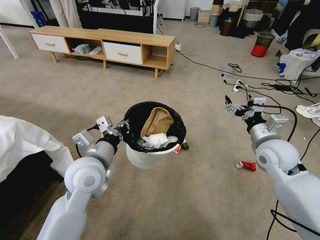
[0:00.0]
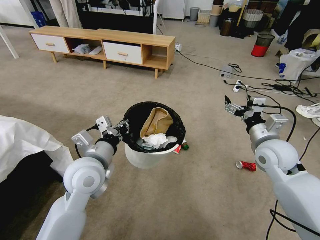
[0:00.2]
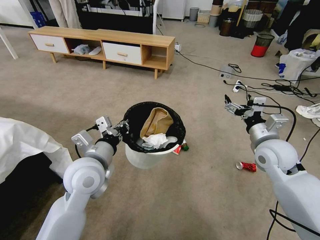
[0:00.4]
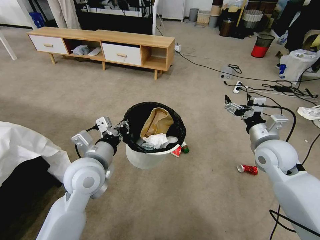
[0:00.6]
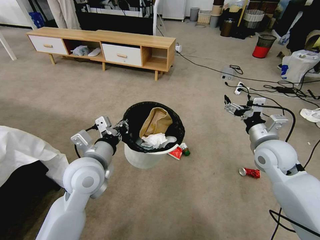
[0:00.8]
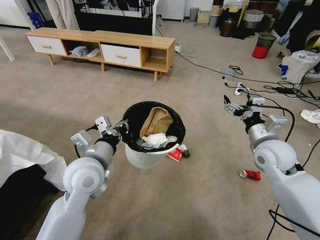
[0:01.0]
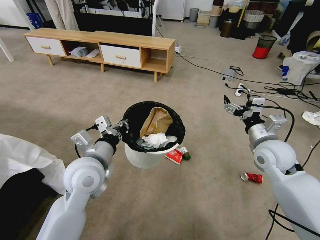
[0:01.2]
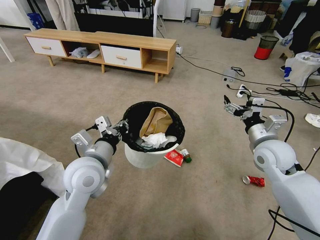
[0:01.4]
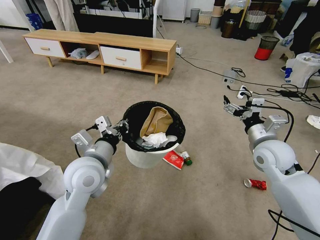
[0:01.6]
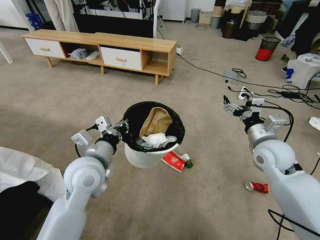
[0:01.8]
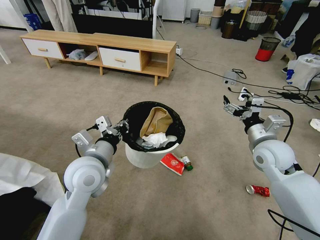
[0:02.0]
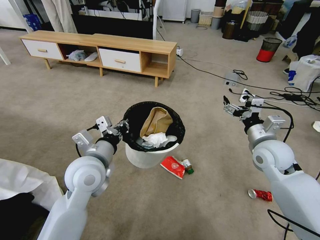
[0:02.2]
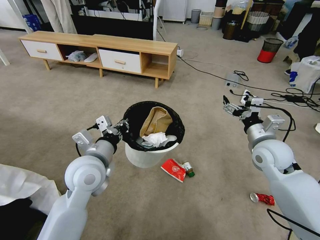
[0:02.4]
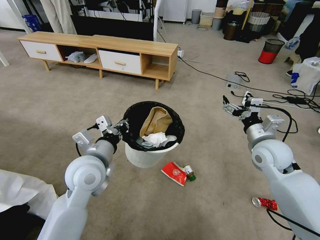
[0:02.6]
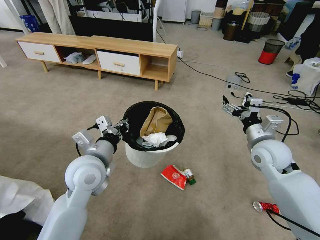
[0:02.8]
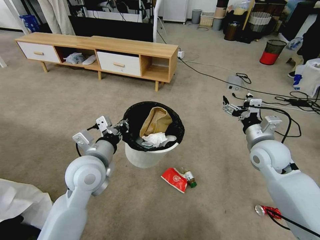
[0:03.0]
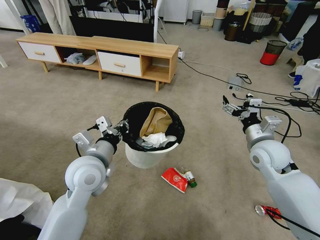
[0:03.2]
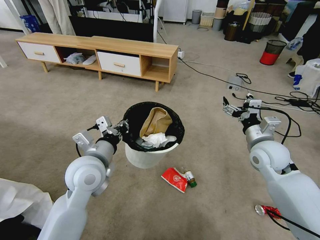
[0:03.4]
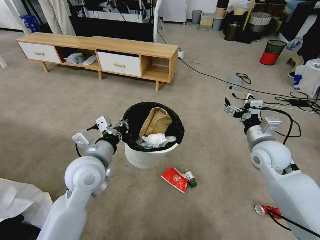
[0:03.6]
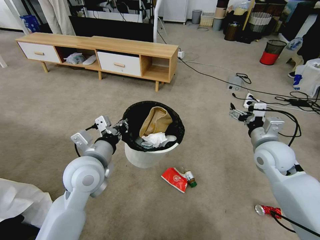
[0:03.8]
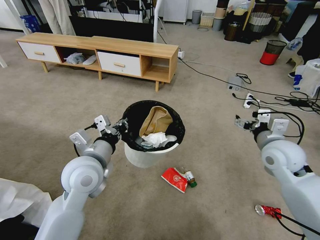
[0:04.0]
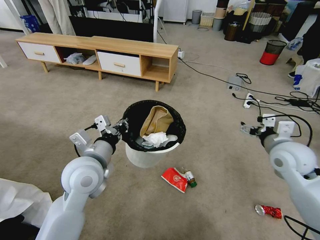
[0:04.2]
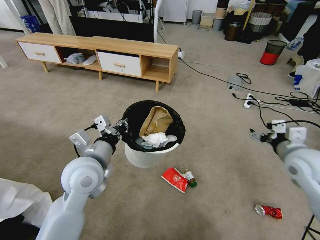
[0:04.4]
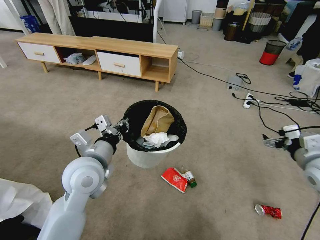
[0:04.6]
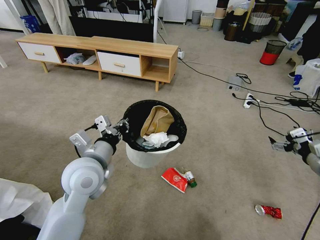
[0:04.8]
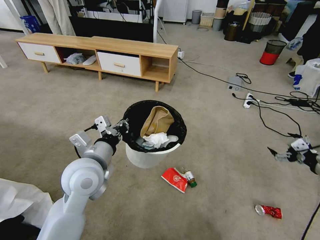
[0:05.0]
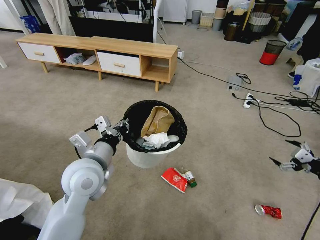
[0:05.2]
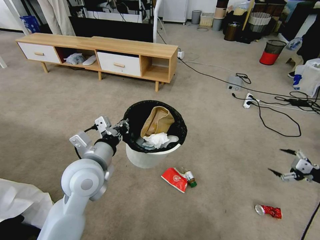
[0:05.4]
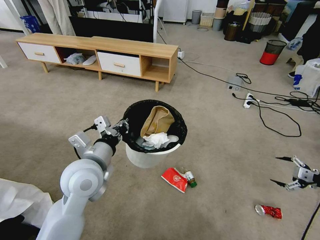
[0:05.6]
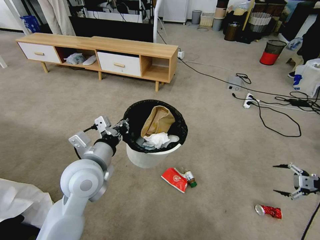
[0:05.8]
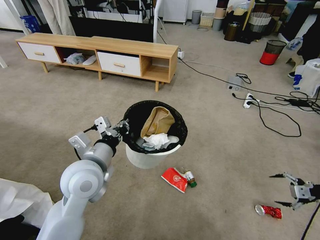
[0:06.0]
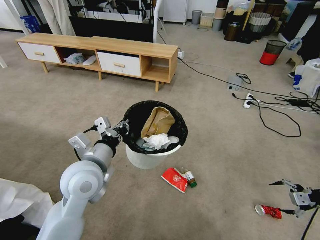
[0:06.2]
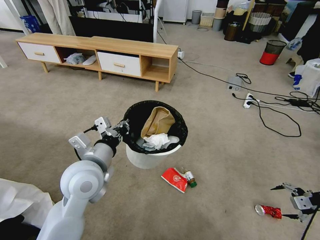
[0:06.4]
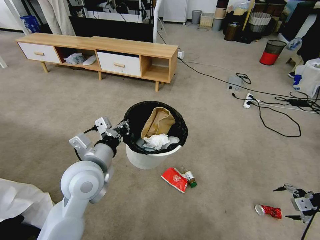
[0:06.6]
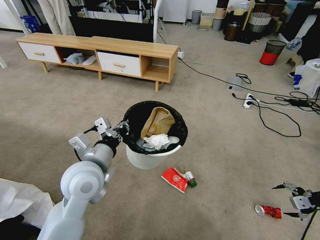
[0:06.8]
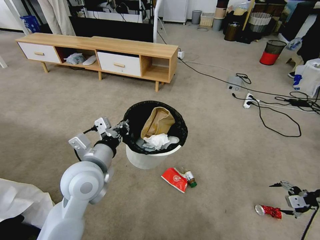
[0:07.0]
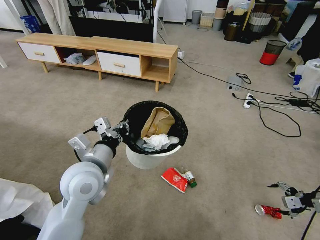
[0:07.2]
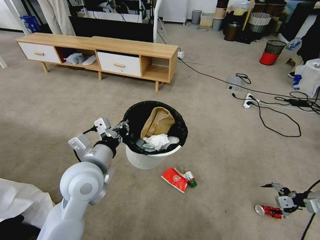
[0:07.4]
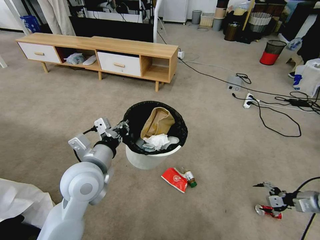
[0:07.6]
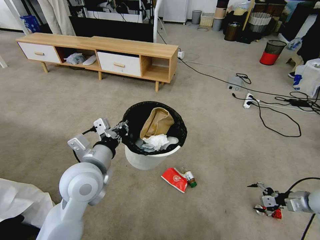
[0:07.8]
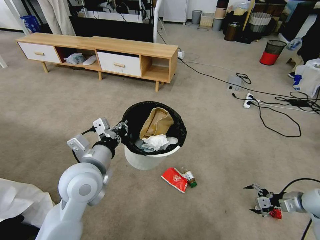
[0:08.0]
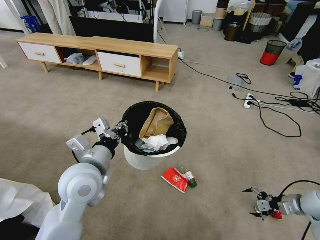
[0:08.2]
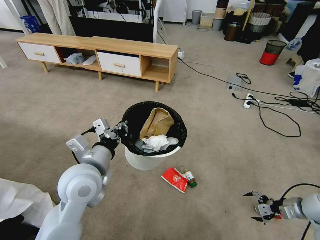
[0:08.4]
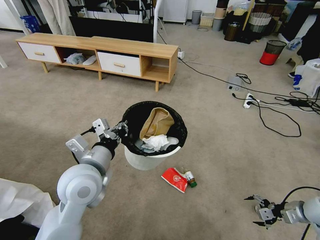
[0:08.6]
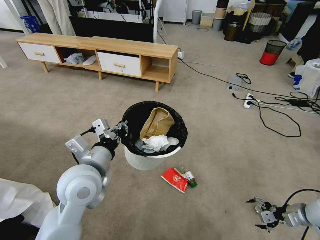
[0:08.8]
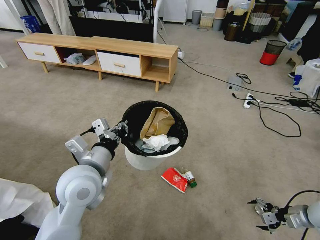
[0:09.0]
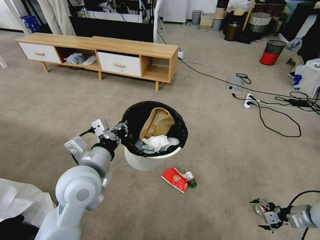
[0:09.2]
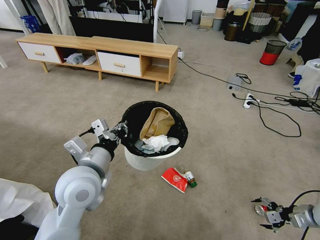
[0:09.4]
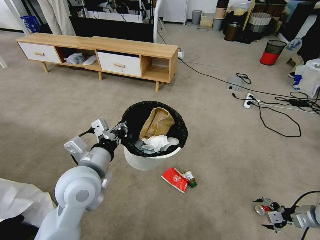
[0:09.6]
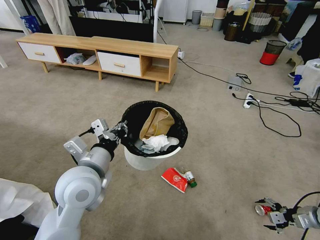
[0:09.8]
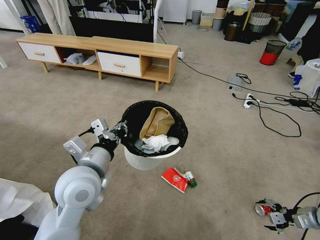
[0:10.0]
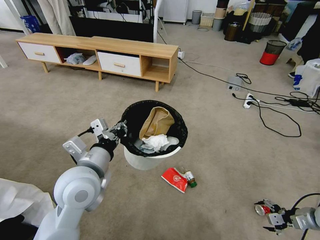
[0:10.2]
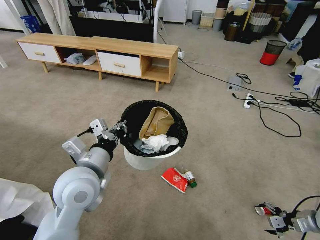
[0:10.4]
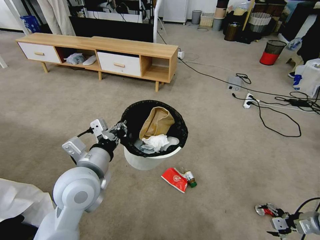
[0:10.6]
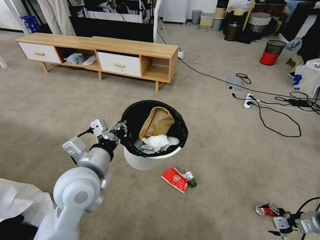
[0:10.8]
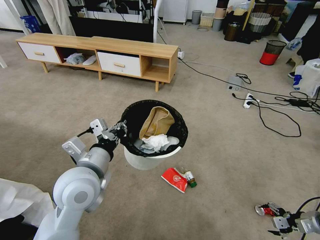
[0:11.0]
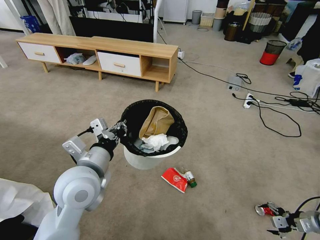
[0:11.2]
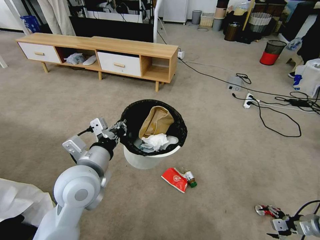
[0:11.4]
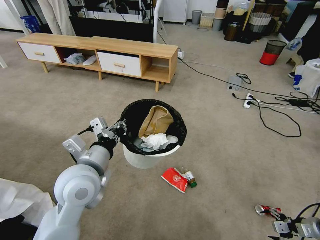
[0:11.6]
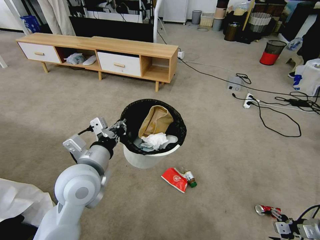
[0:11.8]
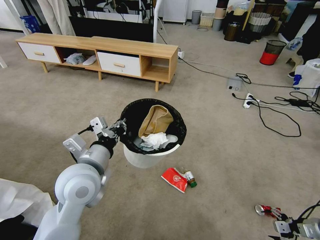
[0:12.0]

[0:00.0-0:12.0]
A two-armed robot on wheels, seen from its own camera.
Task of the whole recording: Pick up the trash bin and place the garbage on the floor into it.
0:03.0 to 0:04.4: The right gripper is displaced to the right and backward by some 10 cm.
0:04.4 to 0:06.0: The right gripper goes about 20 cm to the right.
0:06.0 to 0:07.6: The right gripper travels downward by about 10 cm.
0:07.6 to 0:09.0: The right gripper moves downward, approximately 5 cm.
0:09.0 to 0:10.4: The grippers move only a little.
0:10.4 to 0:12.0: There are only small adjustments of the grippers.

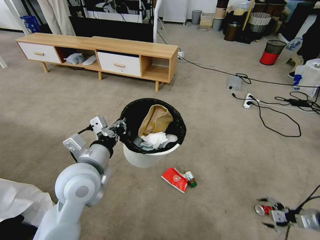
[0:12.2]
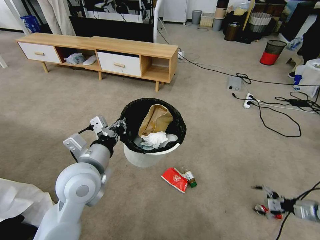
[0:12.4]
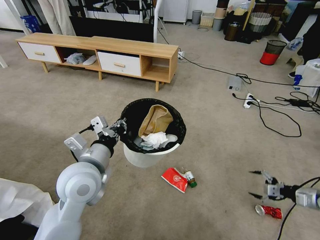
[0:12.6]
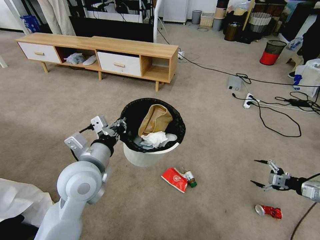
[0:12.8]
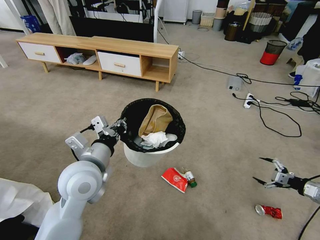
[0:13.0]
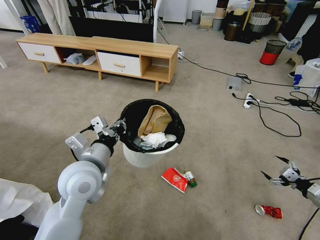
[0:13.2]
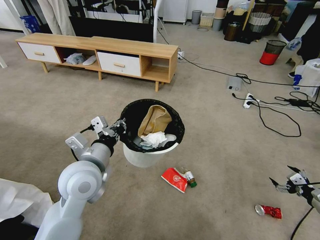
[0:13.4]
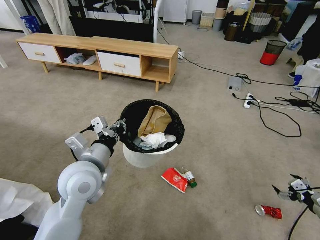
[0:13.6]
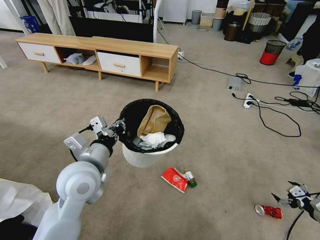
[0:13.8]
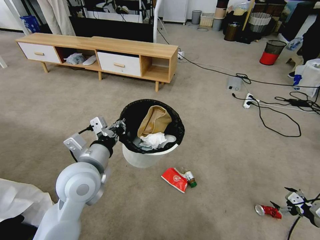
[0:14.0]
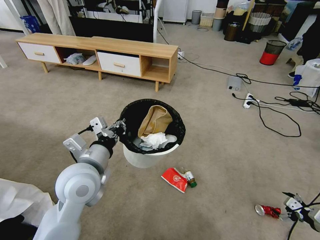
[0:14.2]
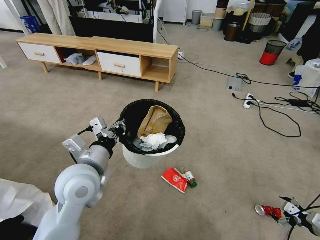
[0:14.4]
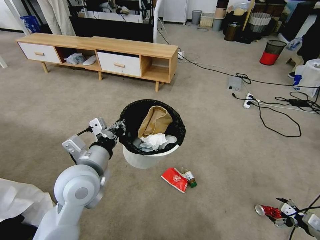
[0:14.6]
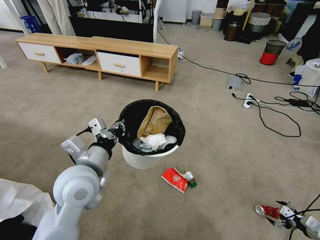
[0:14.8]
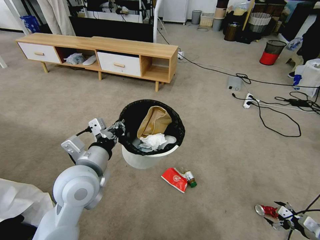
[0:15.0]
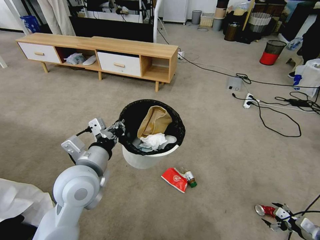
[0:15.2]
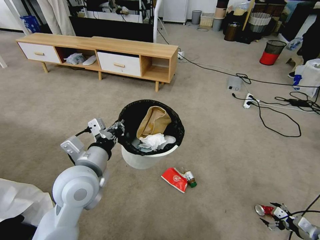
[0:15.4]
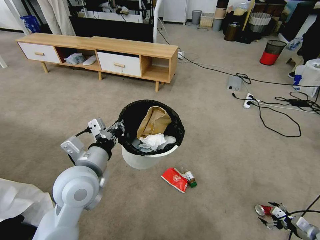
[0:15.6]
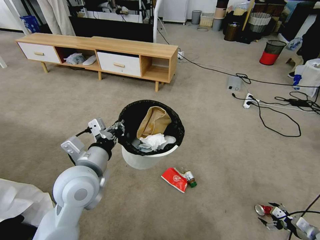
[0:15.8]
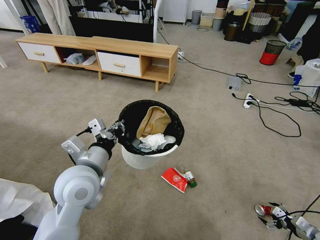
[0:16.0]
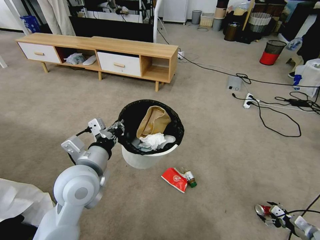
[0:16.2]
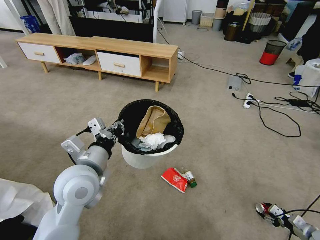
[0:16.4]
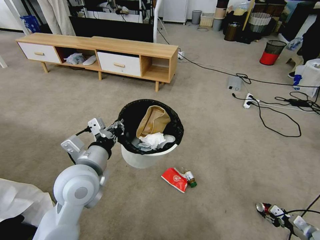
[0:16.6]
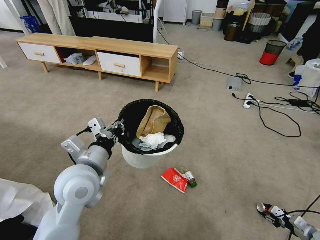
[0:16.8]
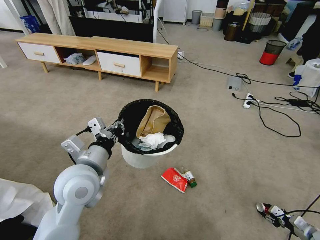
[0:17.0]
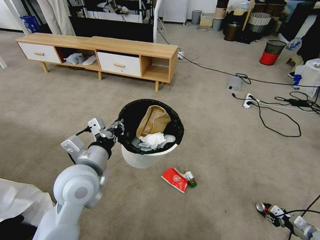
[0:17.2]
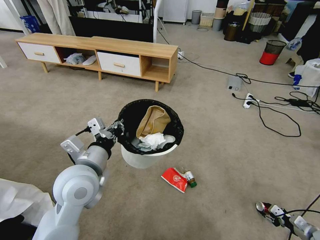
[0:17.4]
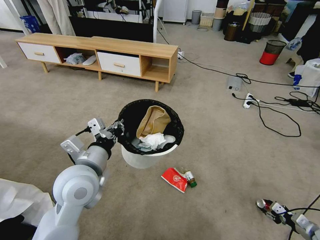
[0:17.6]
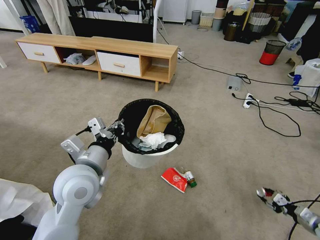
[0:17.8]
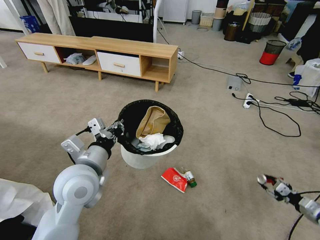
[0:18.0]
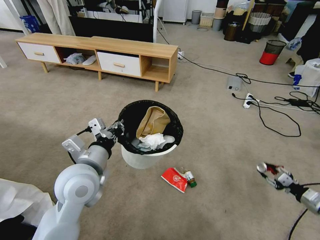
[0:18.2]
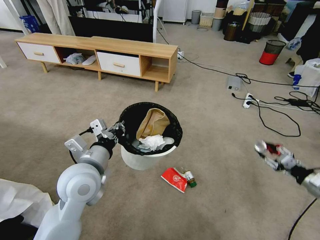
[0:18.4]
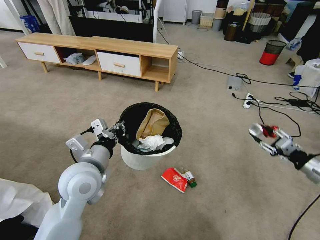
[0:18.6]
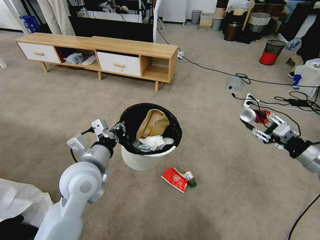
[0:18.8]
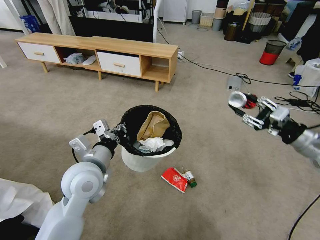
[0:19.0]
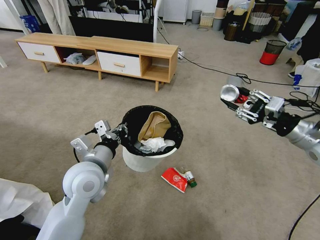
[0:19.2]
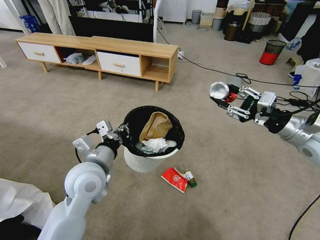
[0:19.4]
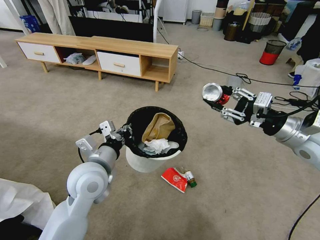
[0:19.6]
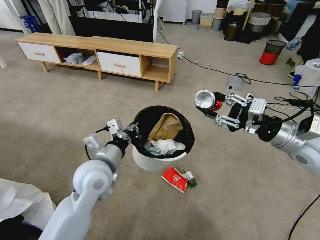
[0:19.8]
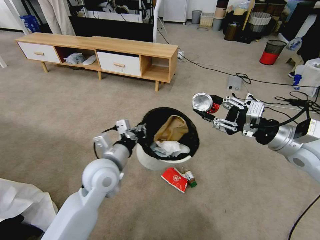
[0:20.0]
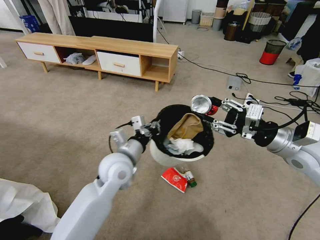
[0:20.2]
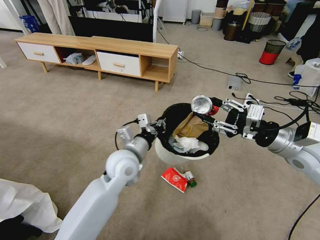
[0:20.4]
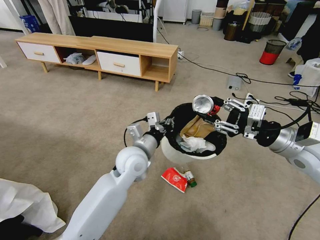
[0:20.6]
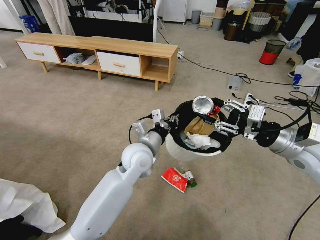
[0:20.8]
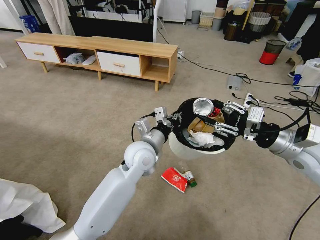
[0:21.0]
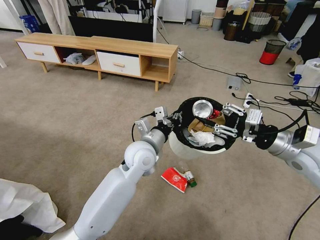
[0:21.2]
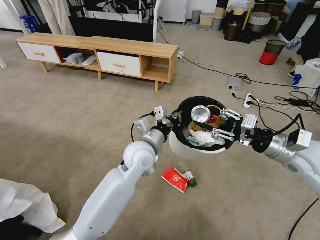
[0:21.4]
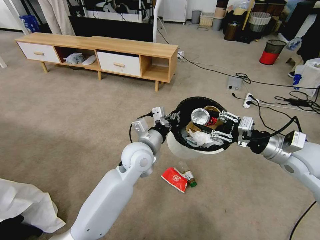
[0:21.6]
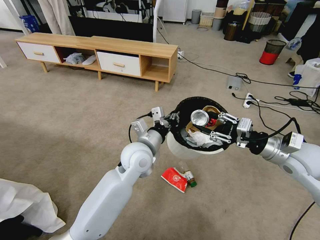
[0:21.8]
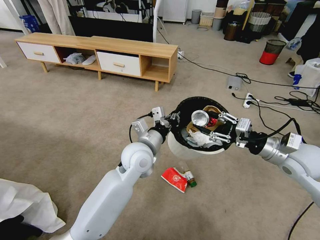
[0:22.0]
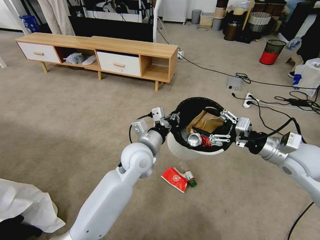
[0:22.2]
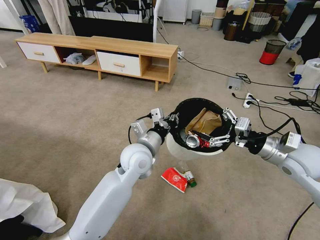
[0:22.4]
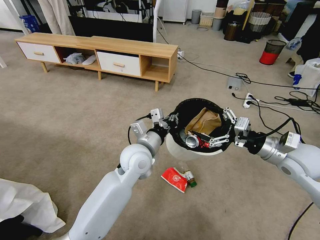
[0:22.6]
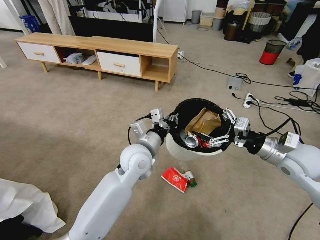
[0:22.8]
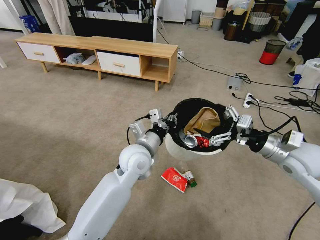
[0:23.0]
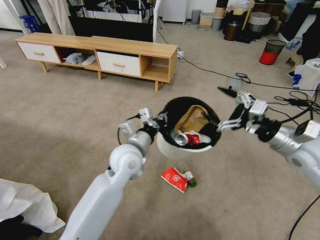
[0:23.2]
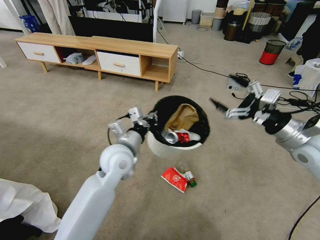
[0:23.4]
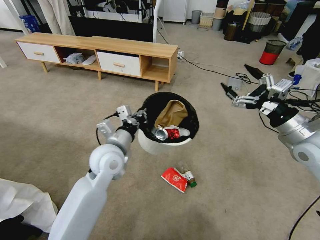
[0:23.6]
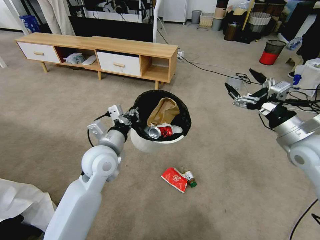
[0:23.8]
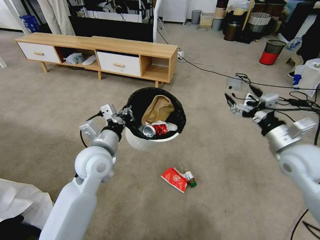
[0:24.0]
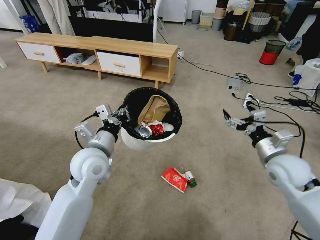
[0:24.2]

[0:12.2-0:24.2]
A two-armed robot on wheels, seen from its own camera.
Task of the whole recording: Pick up the trash bin and place the garbage on the floor into it.
0:12.2 to 0:13.8: The right gripper reaches approximately 10 cm upward, then returns.
0:13.8 to 0:15.2: The right gripper heads downward, covering about 10 cm.
0:15.2 to 0:16.6: The right gripper closes.
0:16.6 to 0:18.2: The right gripper is displaced upward and forward by about 15 cm.
0:18.2 to 0:19.8: The right gripper shifts approximately 35 cm upward and to the left.
0:19.8 to 0:21.2: The left gripper shifts roughly 15 cm to the right and forward.
0:21.2 to 0:22.6: The right gripper opens up.
0:22.6 to 0:24.2: The left gripper moves to the left, roughly 10 cm.
